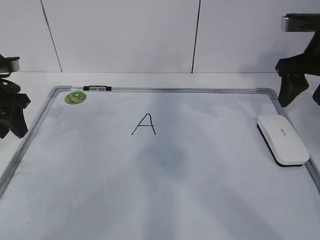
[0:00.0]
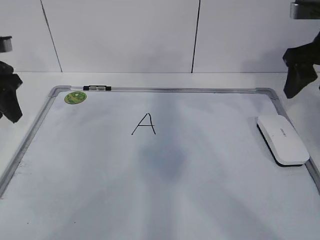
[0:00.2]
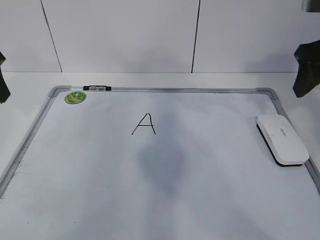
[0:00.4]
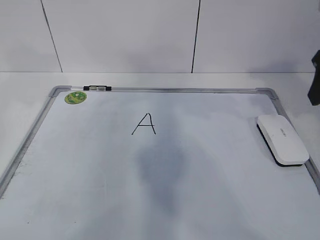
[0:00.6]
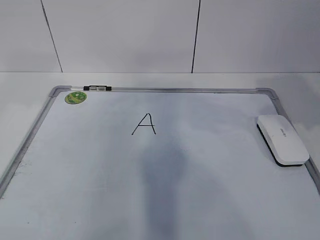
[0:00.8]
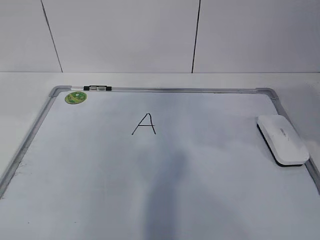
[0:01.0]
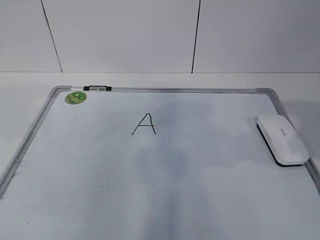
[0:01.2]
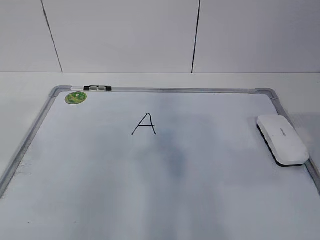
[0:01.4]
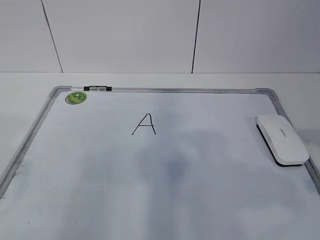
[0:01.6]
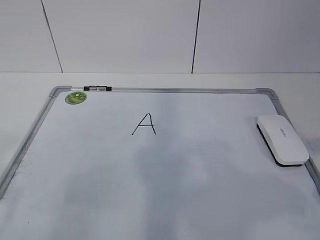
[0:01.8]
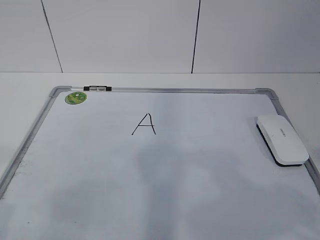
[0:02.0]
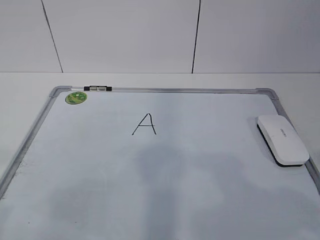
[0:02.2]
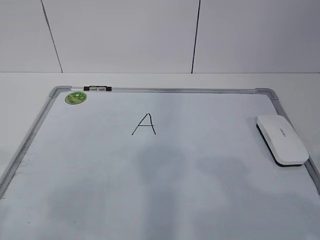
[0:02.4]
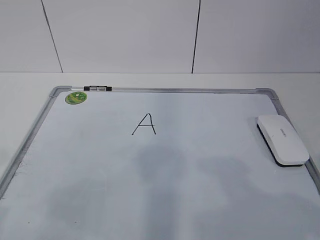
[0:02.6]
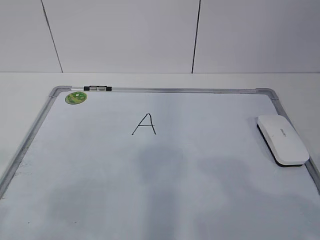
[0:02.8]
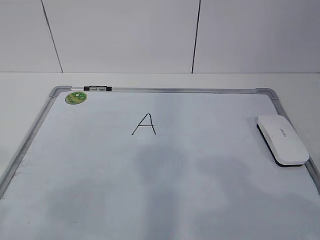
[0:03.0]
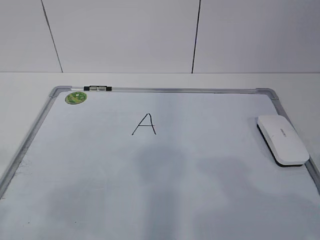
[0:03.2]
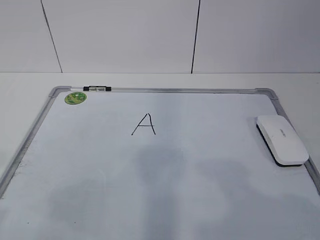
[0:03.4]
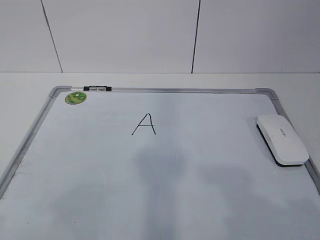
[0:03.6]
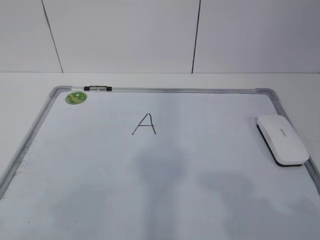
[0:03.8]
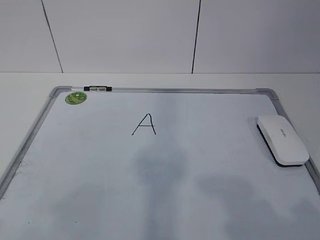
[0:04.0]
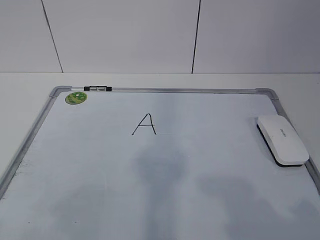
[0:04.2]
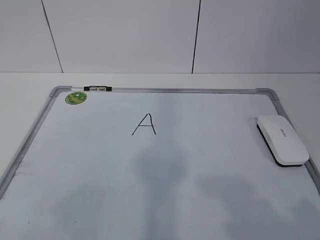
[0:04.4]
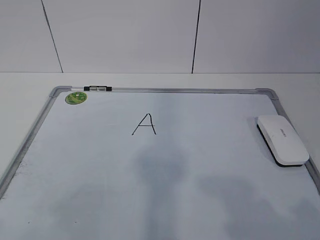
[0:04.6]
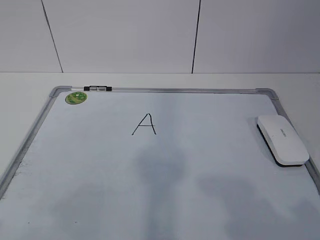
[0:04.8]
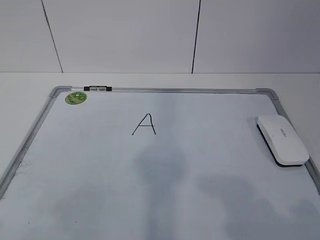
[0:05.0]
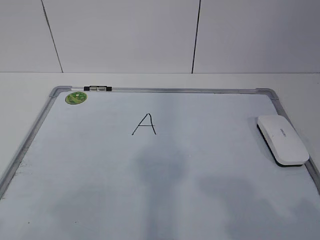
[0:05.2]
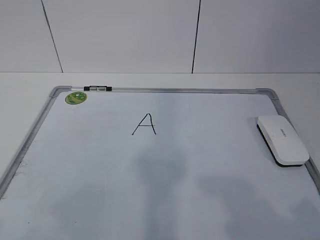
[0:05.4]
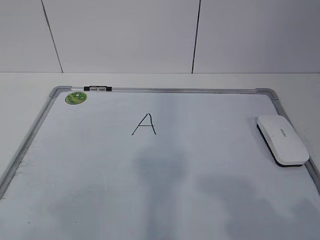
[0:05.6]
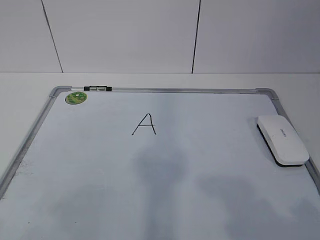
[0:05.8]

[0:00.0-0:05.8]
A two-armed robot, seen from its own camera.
Task of the whole recording: pick up the eraser on the blackboard and erase the letter "a".
0:00.0 to 0:01.4: The right gripper shifts roughly 25 cm backward. Meanwhile the left gripper goes some 25 cm backward and upward.
0:01.4 to 0:02.8: The left gripper shifts roughly 10 cm backward and downward; the right gripper shifts about 10 cm backward.
0:04.4 to 0:05.8: Both grippers stay put.

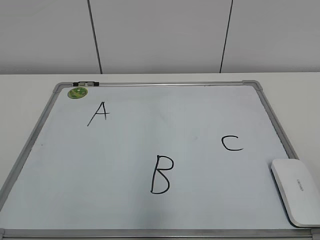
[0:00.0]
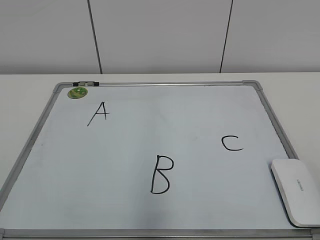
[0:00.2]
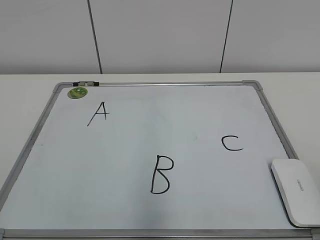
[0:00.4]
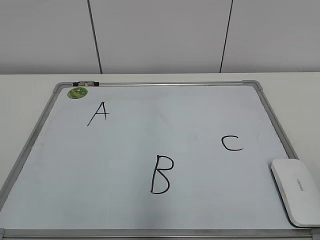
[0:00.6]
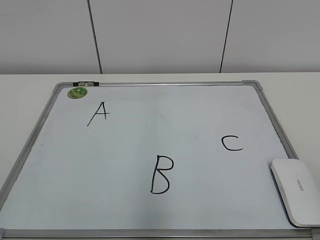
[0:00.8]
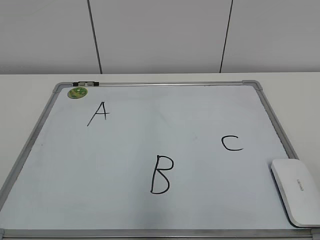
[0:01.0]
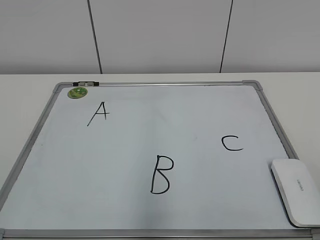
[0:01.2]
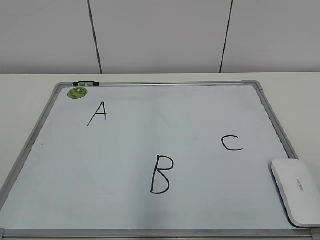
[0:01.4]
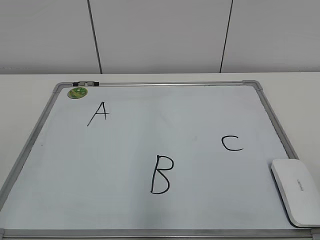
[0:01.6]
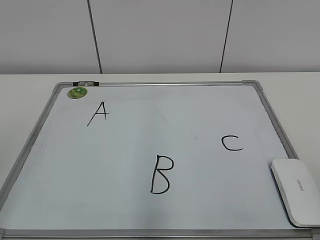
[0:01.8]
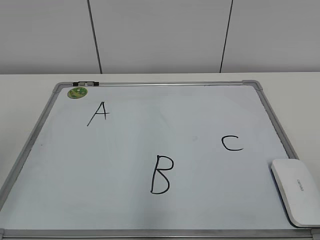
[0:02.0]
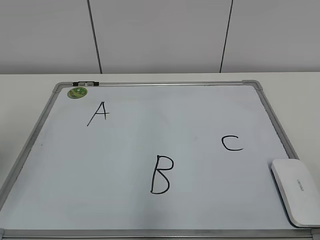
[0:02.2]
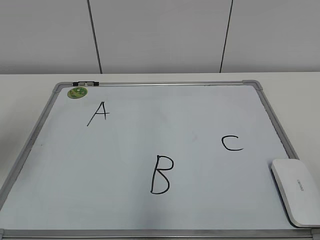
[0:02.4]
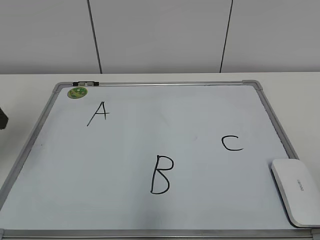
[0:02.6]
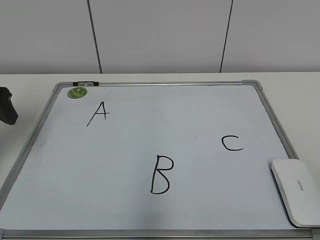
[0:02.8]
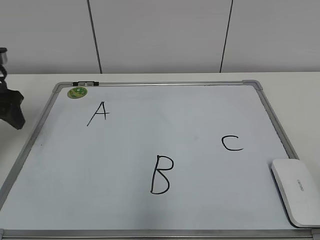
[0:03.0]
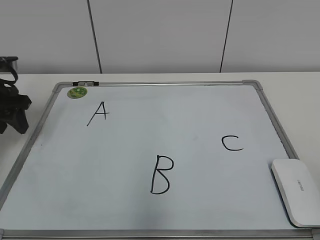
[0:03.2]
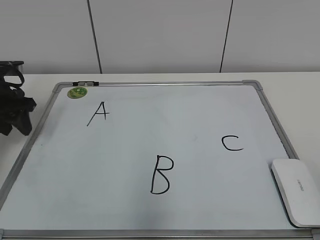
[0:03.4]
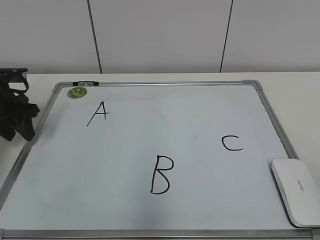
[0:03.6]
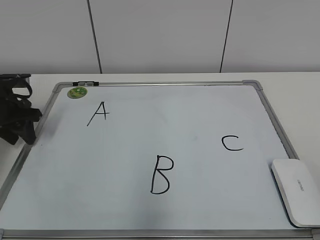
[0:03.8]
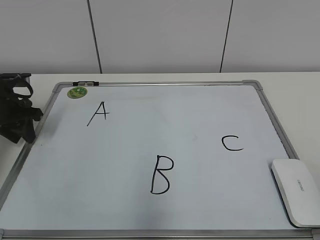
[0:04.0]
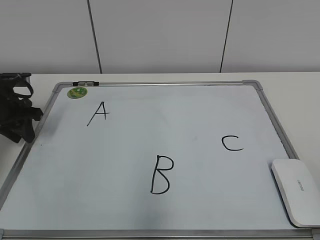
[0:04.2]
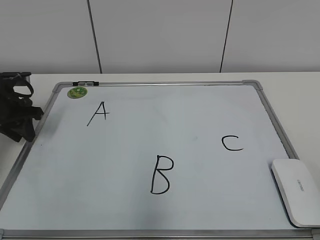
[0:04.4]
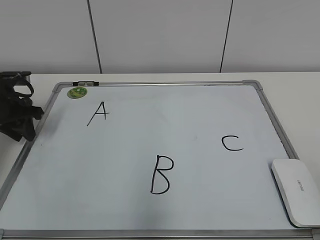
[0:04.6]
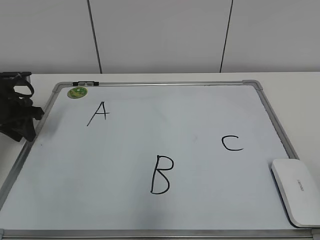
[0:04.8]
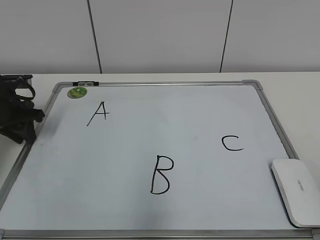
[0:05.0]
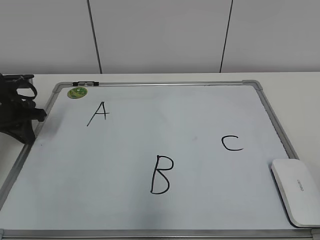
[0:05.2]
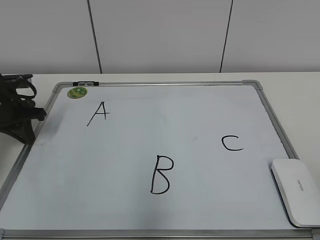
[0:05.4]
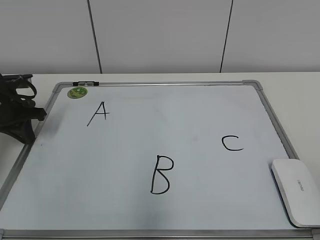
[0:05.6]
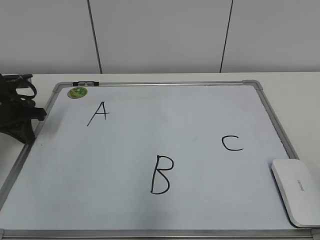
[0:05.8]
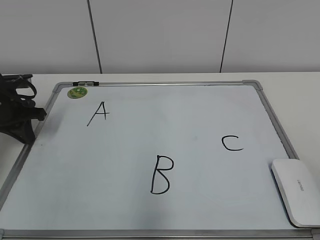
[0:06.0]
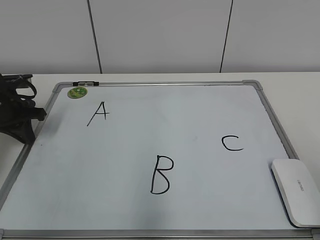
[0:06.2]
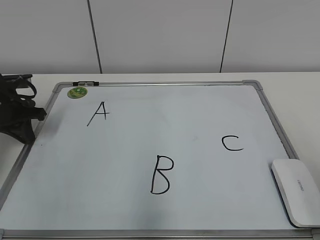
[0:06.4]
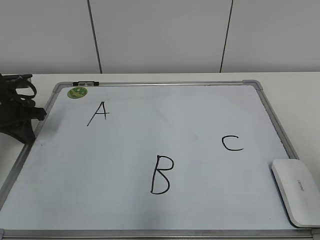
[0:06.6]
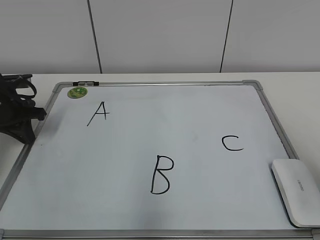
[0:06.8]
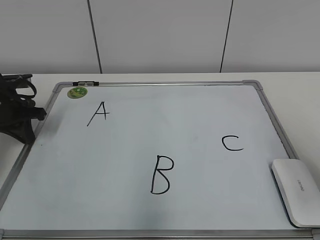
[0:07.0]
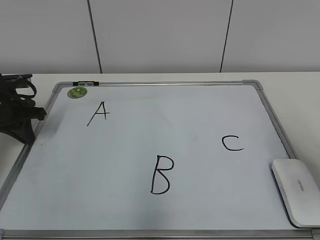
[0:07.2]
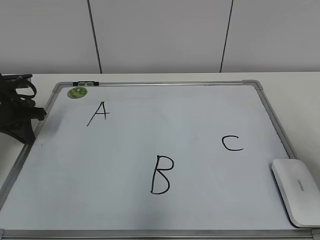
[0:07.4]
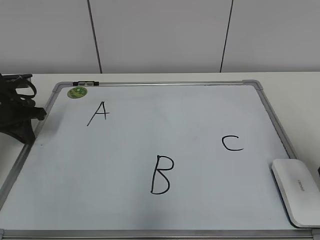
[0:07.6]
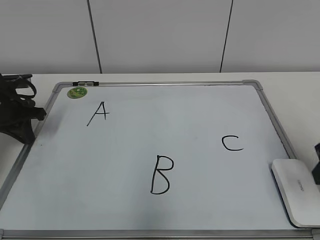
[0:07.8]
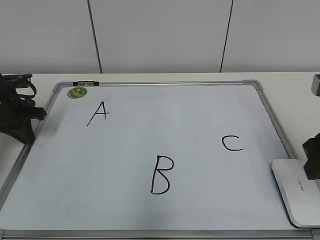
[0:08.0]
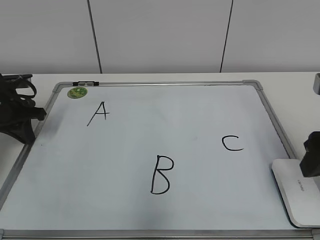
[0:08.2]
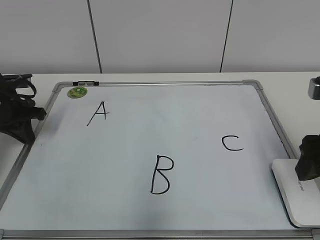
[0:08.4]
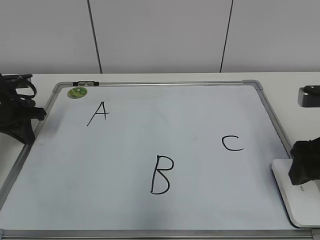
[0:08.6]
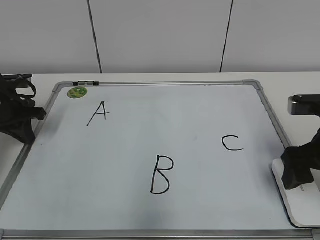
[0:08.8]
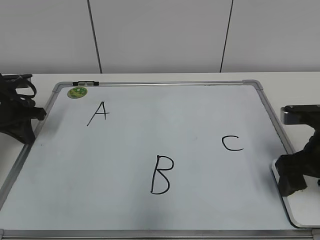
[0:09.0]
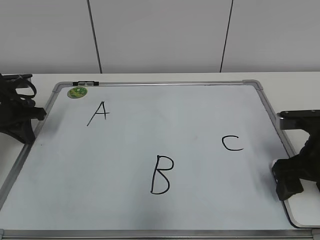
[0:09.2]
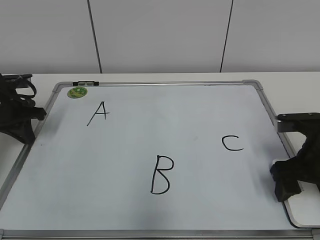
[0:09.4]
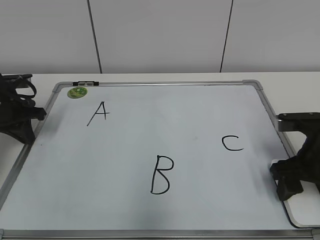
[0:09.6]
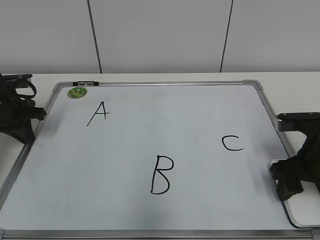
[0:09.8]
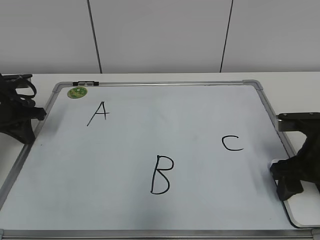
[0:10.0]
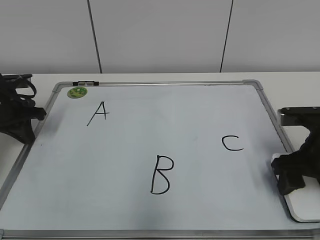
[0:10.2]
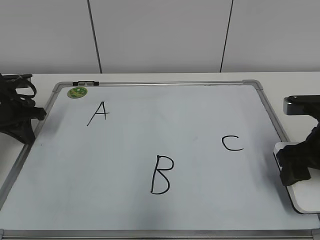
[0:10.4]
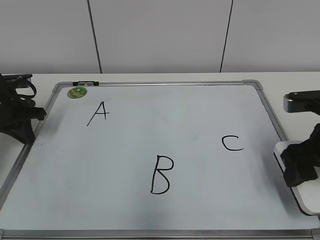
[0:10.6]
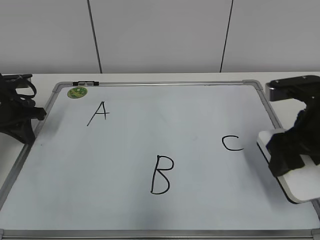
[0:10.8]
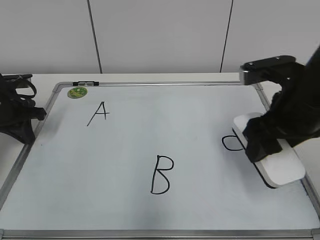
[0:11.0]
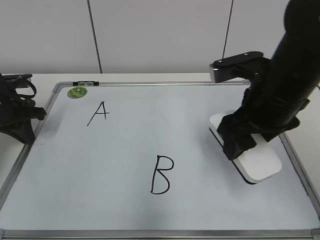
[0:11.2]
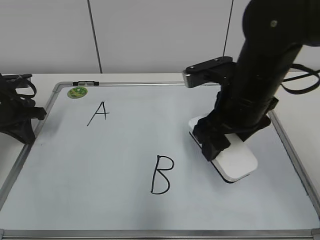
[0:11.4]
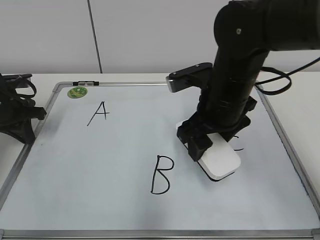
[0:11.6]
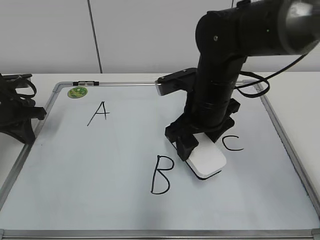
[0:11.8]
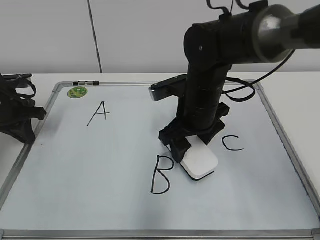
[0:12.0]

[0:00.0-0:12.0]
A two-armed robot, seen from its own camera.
Task of the whole recording: pick up the eraser on the blackboard and erase the letter "B".
Step, 0:00.0 to 0:05.0: Hold the drawing board steady with your left hand.
Step, 0:05.4 to 0:09.8: Grab the eraser with your right hand.
0:01.6 to 0:03.0: The left gripper goes approximately 30 cm forward.
0:03.0 to 0:04.4: The left gripper shifts about 5 cm downward, and closes.
0:06.0 to 0:07.6: The right gripper travels forward by roughly 20 cm, and closes.
0:07.6 to 0:09.0: The right gripper travels downward by some 5 cm, and opens its fingers.
0:09.0 to 0:10.4: The right gripper closes up.
0:10.4 to 0:12.0: The right gripper is displaced to the left and forward by some 20 cm.

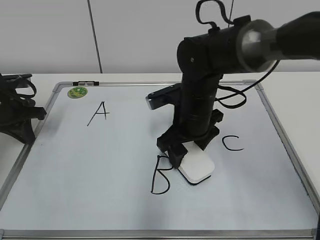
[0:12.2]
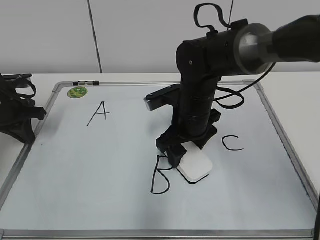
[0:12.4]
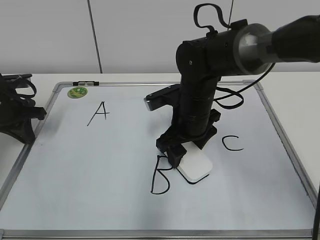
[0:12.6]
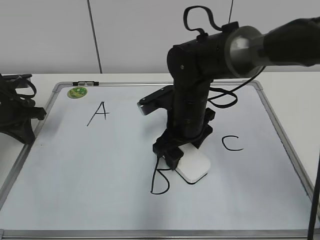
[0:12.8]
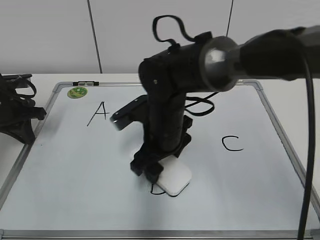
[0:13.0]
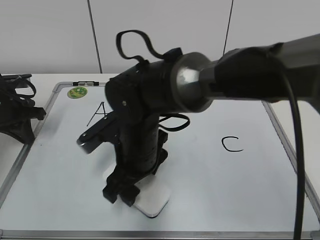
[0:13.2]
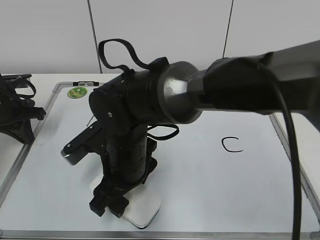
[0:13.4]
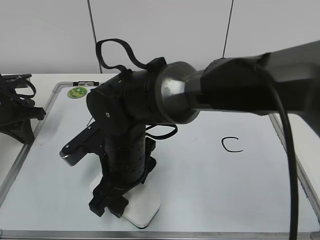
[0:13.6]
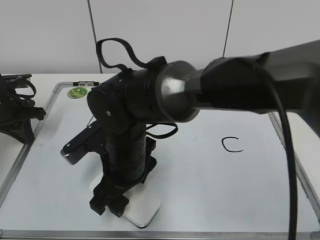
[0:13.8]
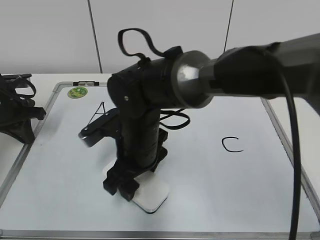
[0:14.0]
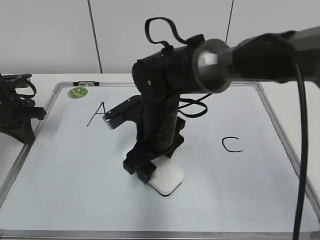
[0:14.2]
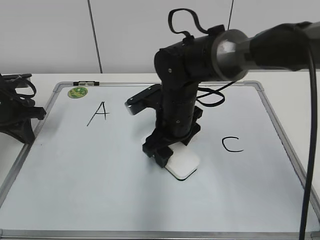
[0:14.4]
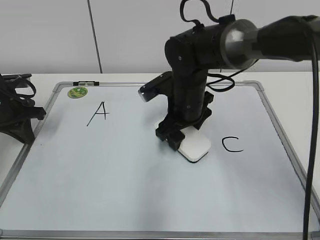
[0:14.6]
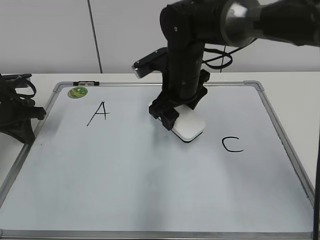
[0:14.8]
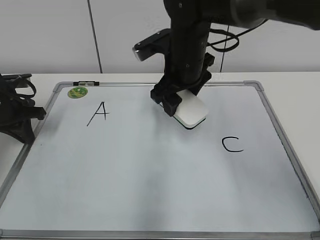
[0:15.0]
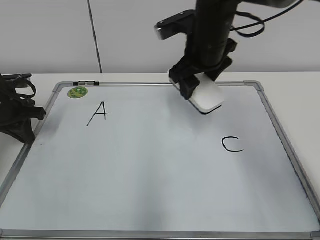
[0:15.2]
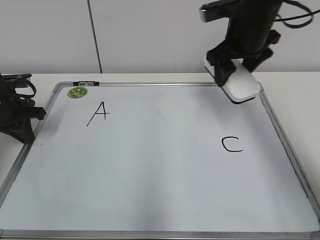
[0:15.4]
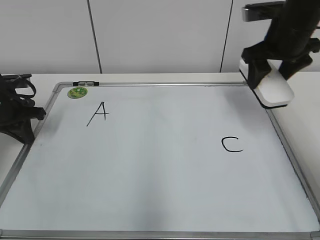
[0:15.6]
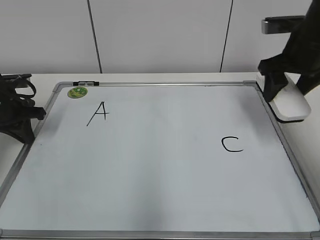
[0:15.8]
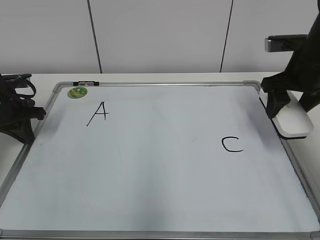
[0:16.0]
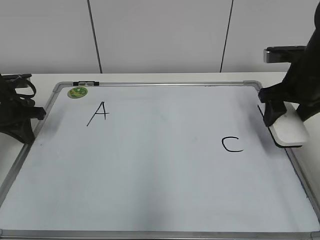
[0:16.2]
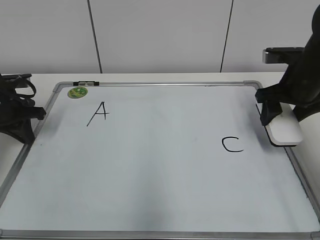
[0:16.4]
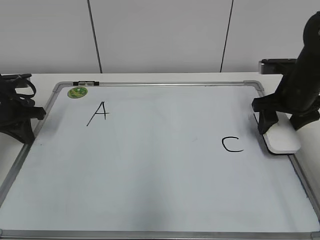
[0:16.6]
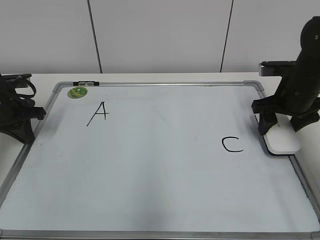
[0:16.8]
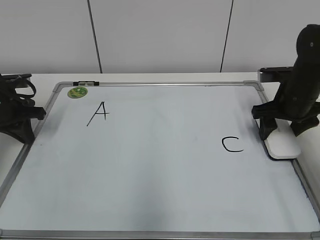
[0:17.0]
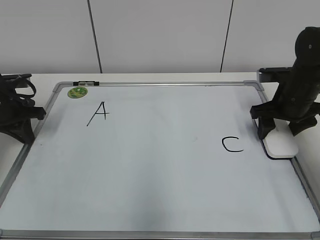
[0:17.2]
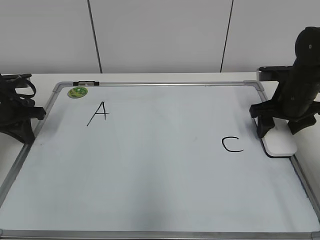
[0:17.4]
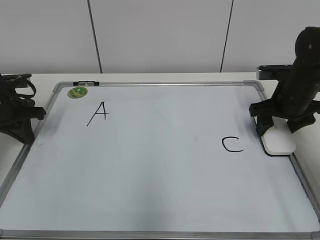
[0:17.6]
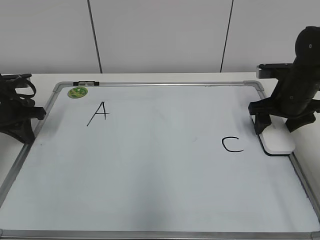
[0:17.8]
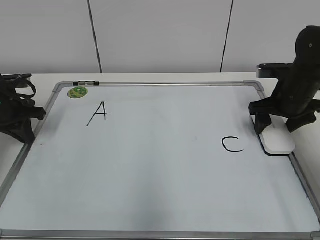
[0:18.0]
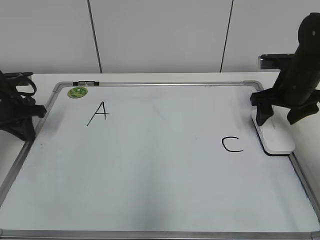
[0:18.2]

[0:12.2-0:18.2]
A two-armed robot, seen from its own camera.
Task of the whole recording: pick up the eraser on the blackboard and erase the letter "B".
Step, 0:12.2 to 0:14.4: Erase the letter B with your right hand.
Step, 0:14.6 to 0:17.8: Put down the eraser with your right hand.
0:12.2 to 0:13.8: The right gripper moves to the left and backward, some 15 cm.
0:13.8 to 0:15.2: The right gripper is displaced to the right, forward and upward by approximately 25 cm.
0:15.2 to 0:16.6: The right gripper goes about 20 cm to the right and downward.
0:16.6 to 0:18.2: The grippers make only small movements.
